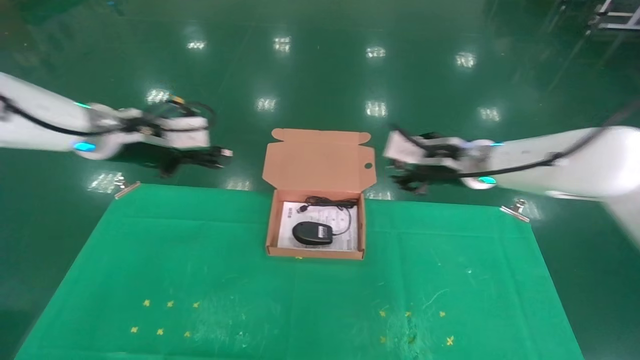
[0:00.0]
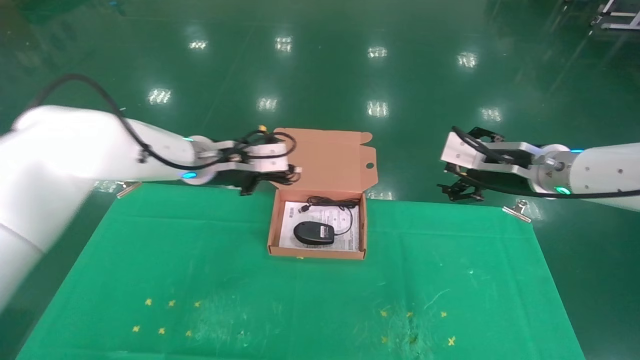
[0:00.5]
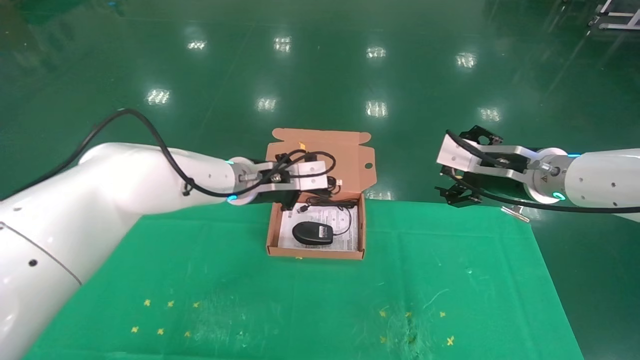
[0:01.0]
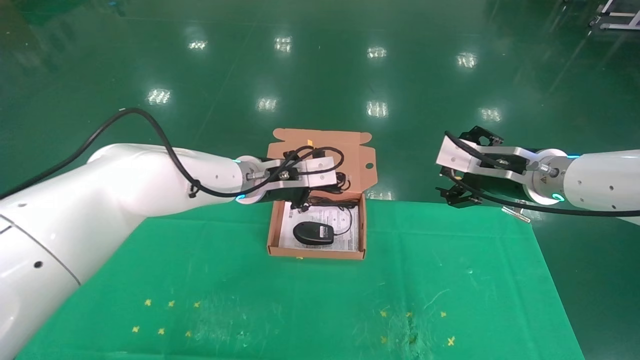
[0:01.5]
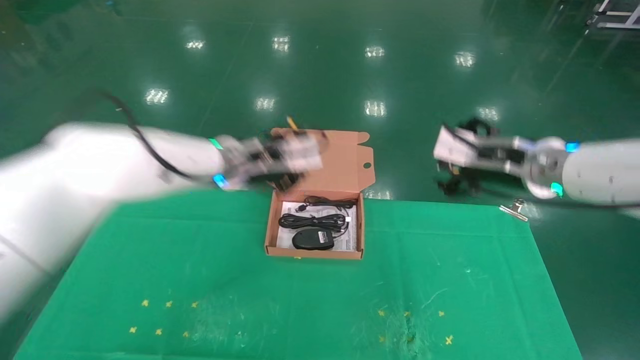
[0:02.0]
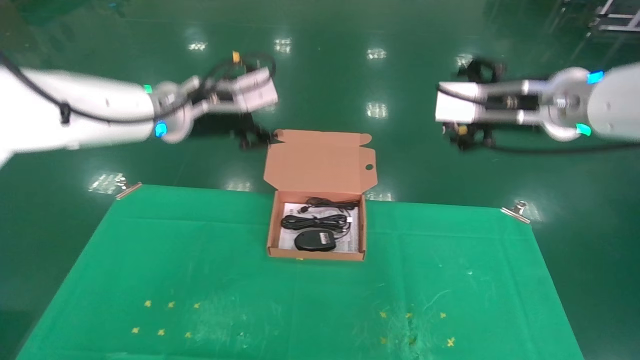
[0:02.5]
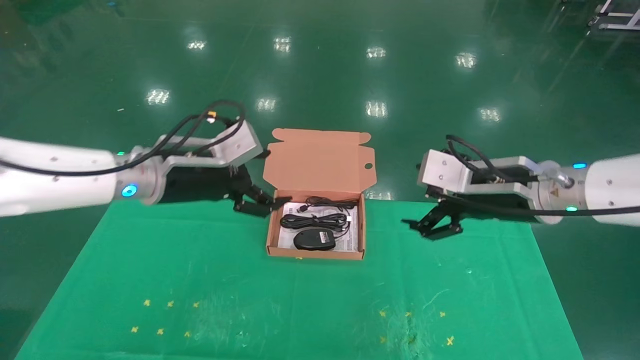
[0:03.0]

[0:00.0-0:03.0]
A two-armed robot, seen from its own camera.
Task of the whole recording: grasp data cable left put into box grasp mouse right put into box.
0:00.0 to 0:01.5: The left gripper shifts roughly 20 cm to the right and downward. Meanwhile the right gripper travels to the right and backward by about 10 cm, and opens up.
0:01.5 to 0:03.0: The right gripper moves backward, some 5 cm. Meanwhile the left gripper goes approximately 15 cm to the left and backward, and opens.
